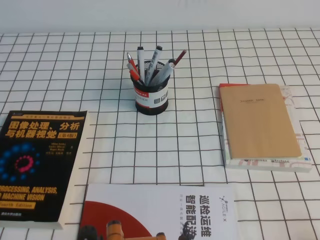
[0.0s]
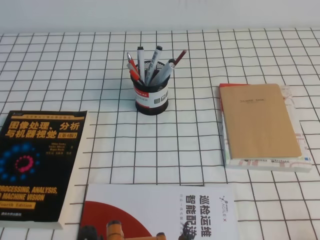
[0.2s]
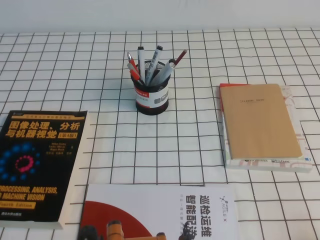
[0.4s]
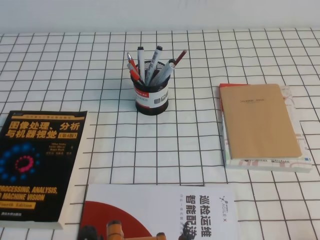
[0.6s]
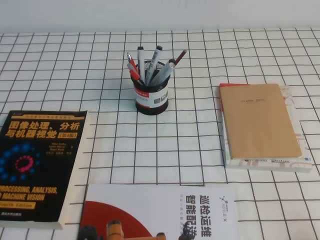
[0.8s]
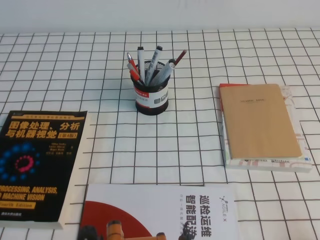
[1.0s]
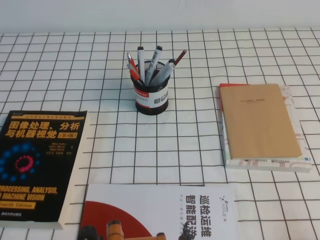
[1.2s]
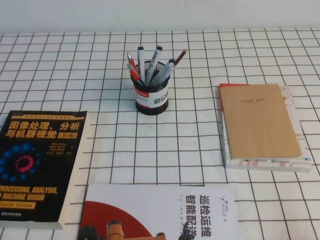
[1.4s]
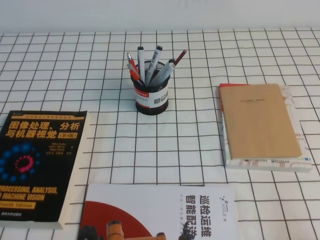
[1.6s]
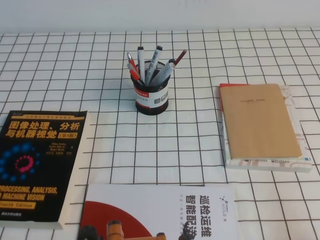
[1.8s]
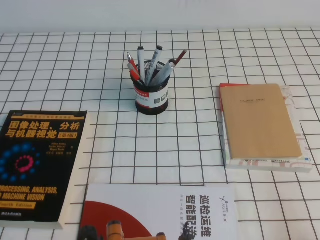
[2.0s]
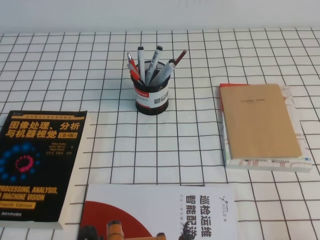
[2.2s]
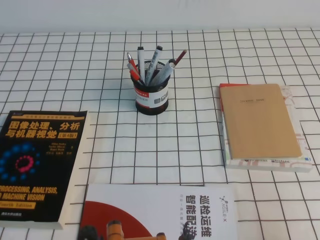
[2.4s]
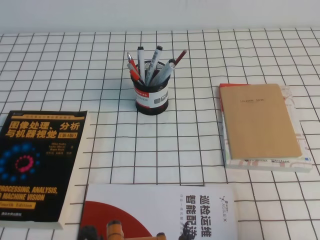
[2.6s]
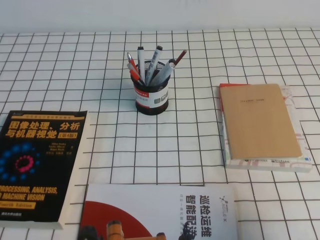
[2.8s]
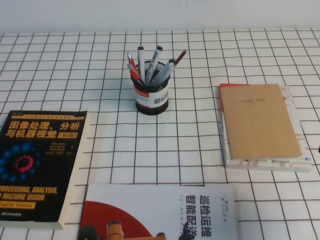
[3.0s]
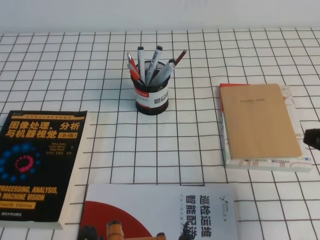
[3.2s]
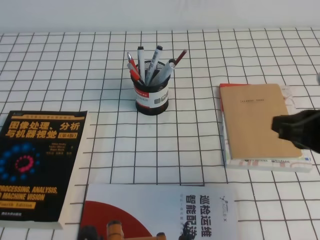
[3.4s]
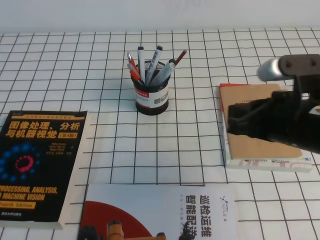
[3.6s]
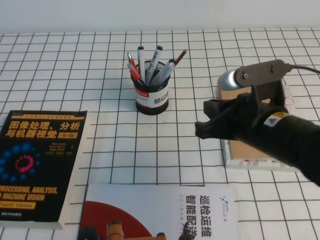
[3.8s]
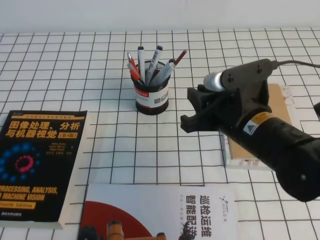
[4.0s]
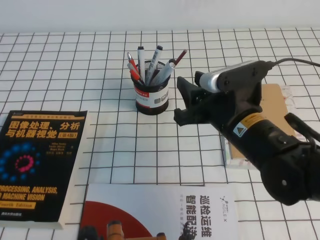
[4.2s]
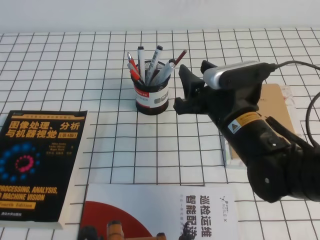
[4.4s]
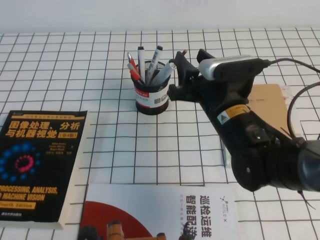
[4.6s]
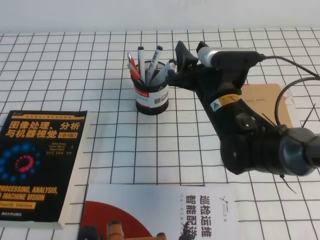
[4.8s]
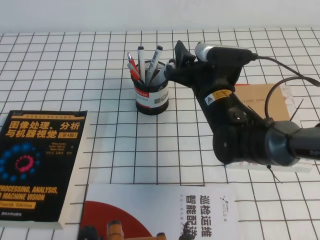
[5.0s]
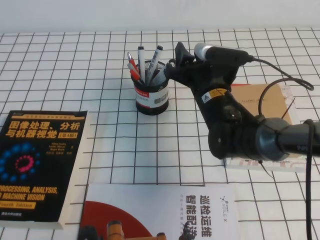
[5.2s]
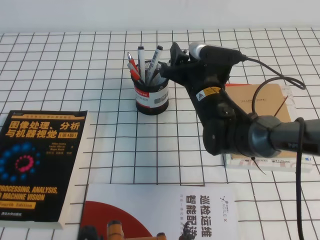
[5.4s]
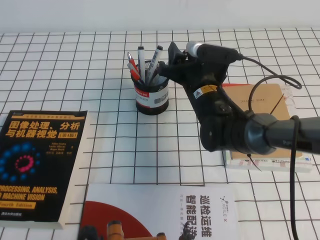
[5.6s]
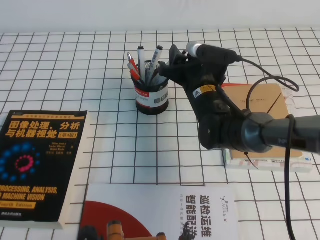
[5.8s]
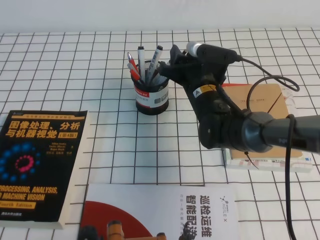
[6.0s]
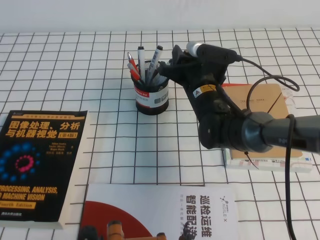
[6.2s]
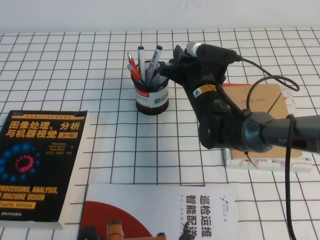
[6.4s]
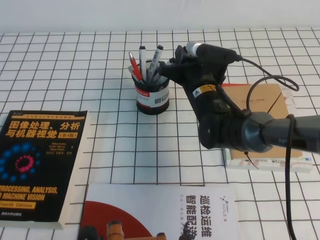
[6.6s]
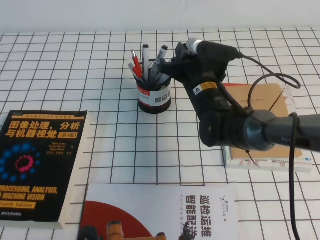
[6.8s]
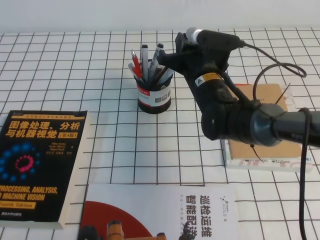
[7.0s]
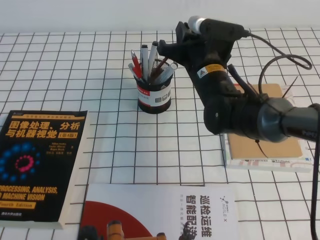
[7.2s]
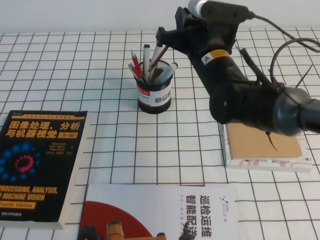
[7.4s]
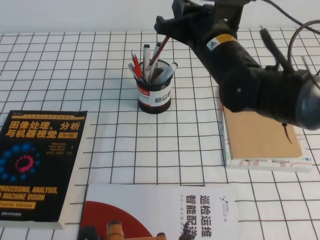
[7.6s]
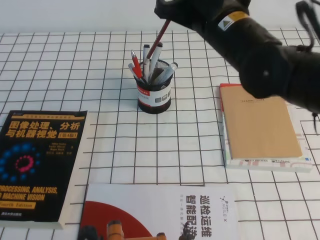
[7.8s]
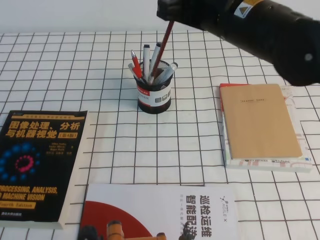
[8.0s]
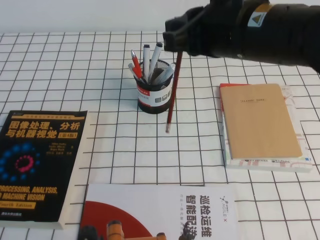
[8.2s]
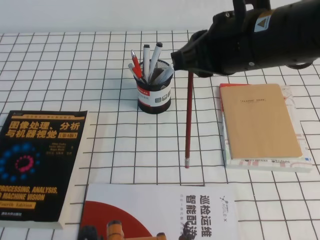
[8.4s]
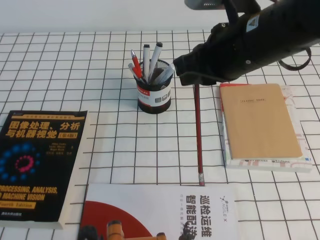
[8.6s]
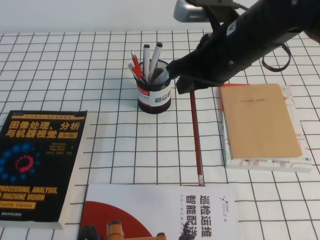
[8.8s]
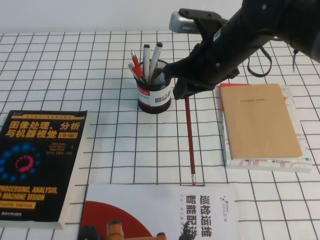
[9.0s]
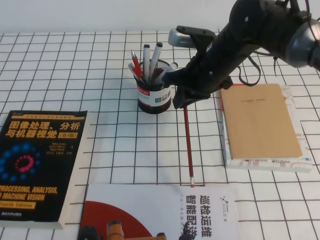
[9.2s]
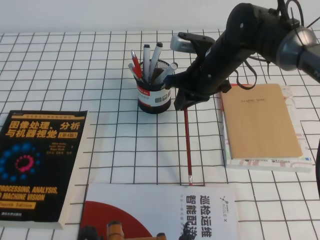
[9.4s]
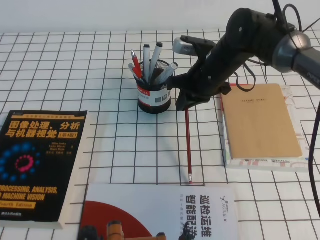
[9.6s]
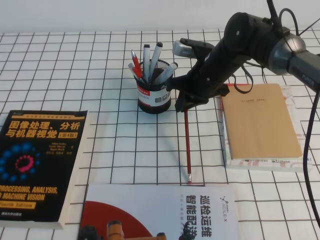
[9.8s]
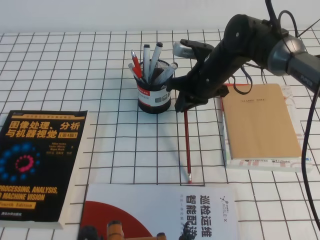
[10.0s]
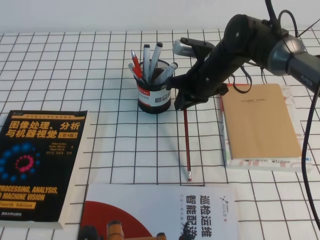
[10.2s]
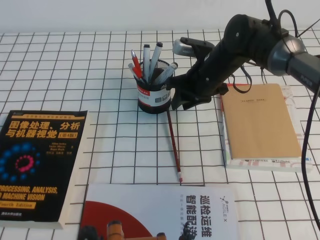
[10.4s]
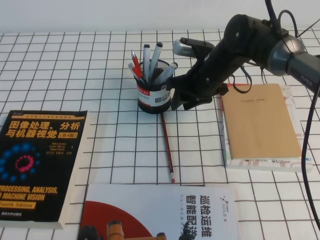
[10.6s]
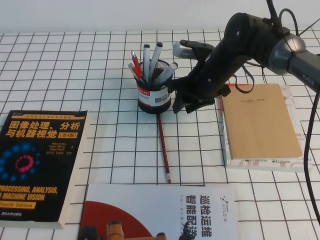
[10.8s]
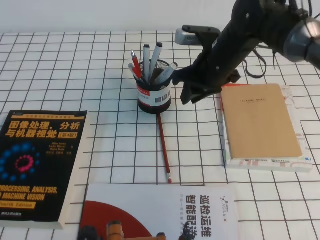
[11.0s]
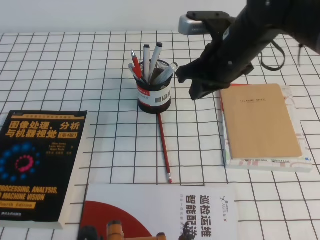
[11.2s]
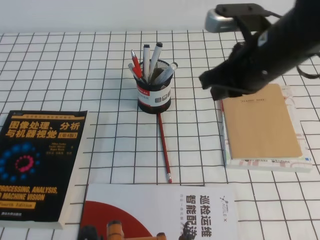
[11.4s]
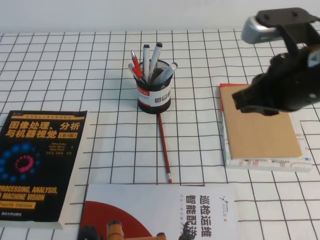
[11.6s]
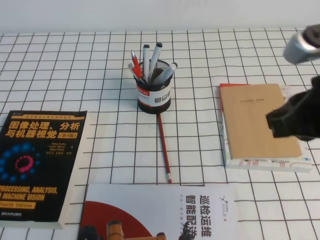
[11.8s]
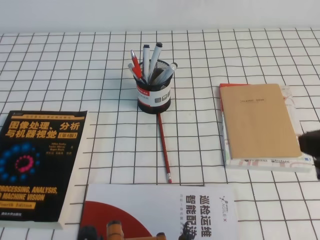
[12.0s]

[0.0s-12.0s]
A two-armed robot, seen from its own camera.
1.6s to 3.0s: The right gripper moves forward and upward, about 15 cm.
3.0s to 4.4s: The right gripper is displaced to the left and forward by some 20 cm, and opens.
4.4s to 6.0s: The right gripper heads forward, covering some 10 cm.
6.0s to 7.6s: The right gripper travels upward by about 10 cm, and closes up.
7.6s to 9.0s: The right gripper reaches approximately 10 cm backward, then returns.
9.0s to 10.4s: The right gripper shifts approximately 15 cm downward and forward, and opens up.
10.4s to 12.0s: The right gripper is displaced backward, to the right and upward by some 35 cm, and closes.

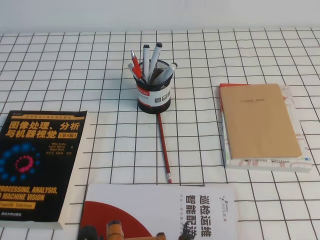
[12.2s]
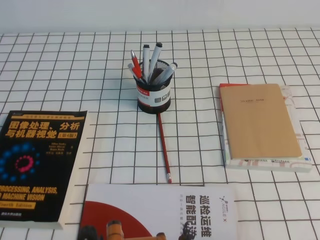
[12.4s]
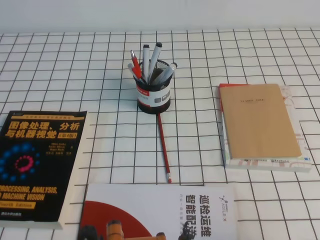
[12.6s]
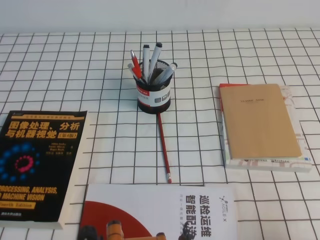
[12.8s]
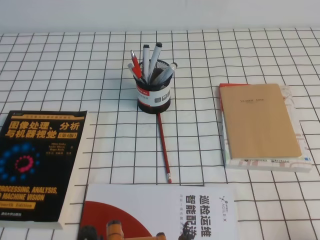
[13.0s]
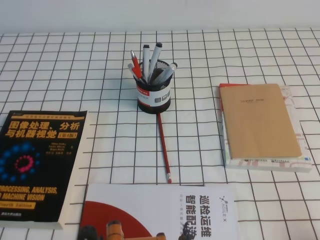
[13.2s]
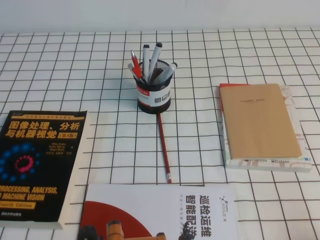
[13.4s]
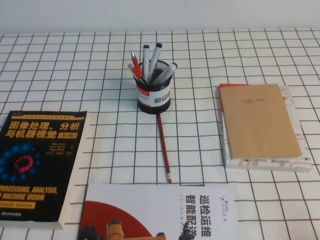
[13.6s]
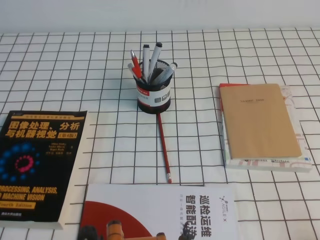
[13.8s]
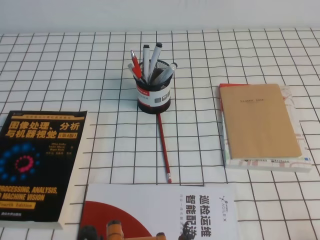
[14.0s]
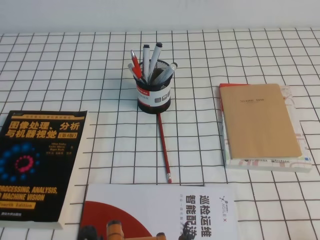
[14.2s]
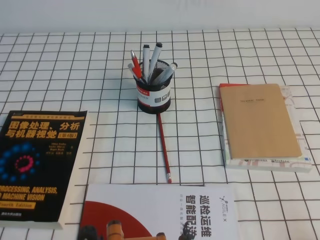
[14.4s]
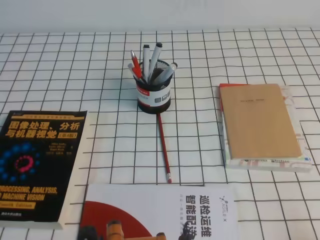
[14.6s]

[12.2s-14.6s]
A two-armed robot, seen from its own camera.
12.2s to 13.4s: The right gripper heads downward and to the right, covering roughly 15 cm.

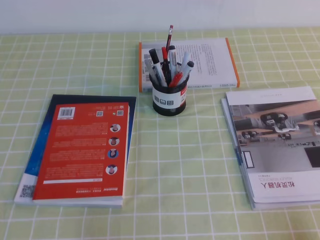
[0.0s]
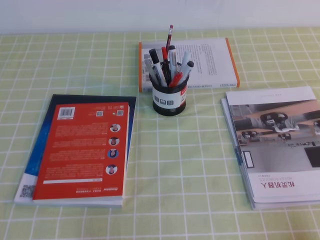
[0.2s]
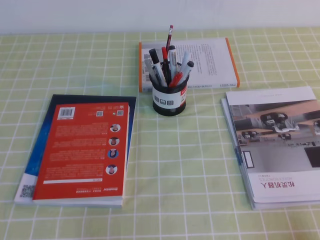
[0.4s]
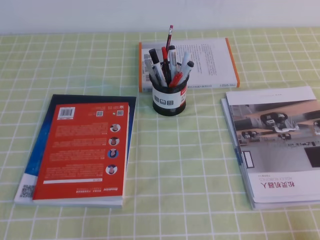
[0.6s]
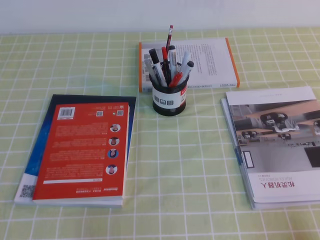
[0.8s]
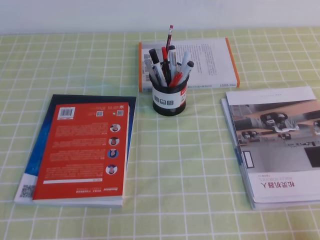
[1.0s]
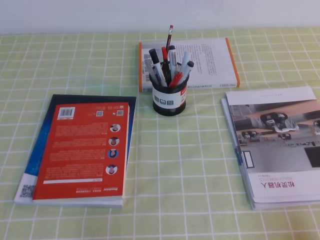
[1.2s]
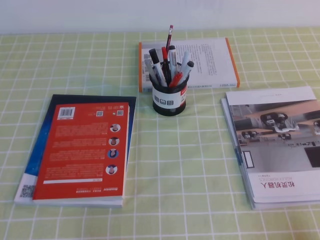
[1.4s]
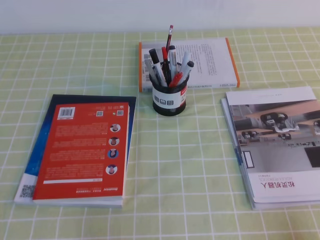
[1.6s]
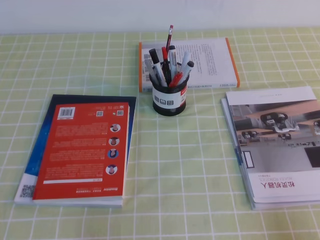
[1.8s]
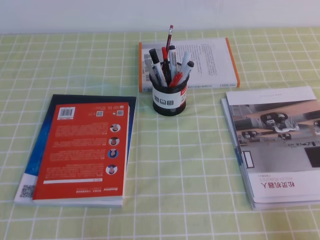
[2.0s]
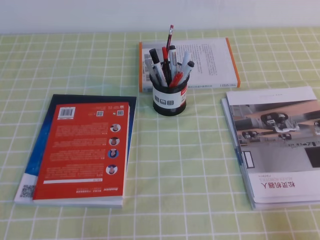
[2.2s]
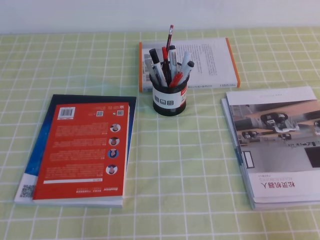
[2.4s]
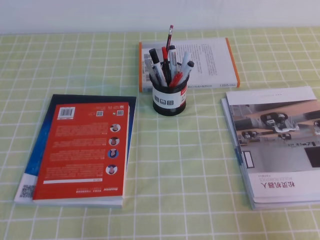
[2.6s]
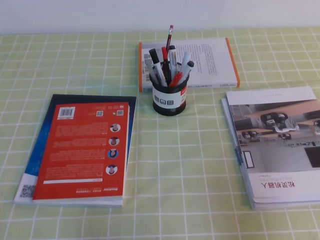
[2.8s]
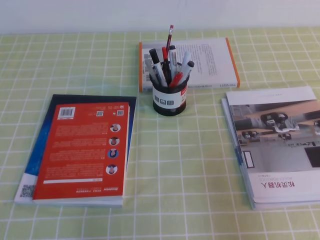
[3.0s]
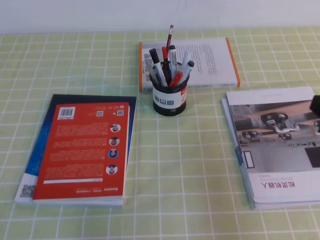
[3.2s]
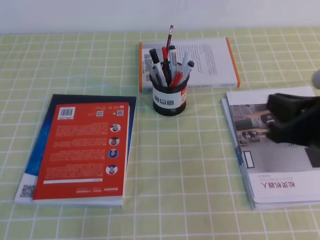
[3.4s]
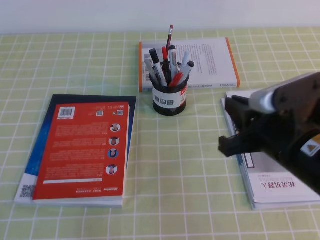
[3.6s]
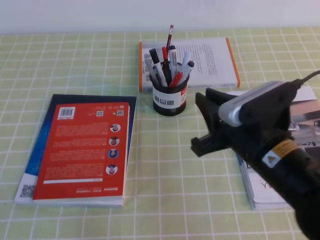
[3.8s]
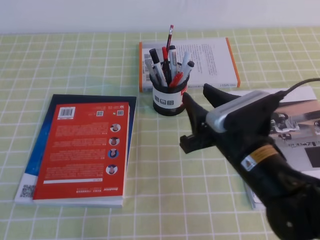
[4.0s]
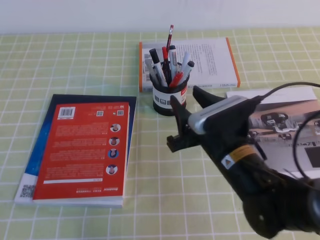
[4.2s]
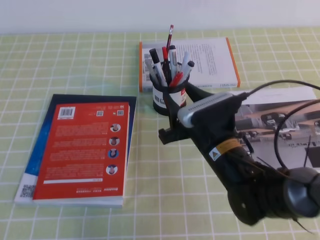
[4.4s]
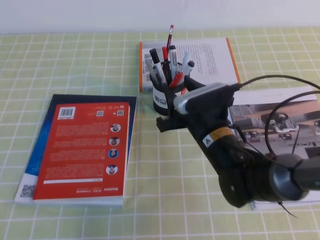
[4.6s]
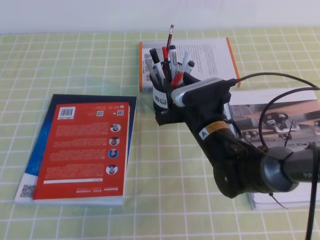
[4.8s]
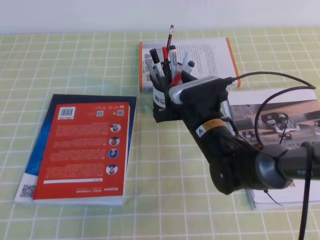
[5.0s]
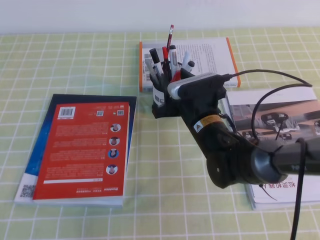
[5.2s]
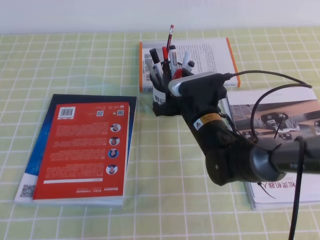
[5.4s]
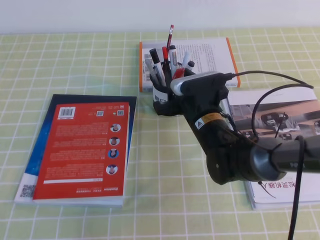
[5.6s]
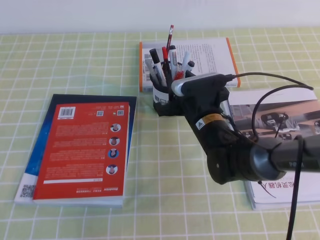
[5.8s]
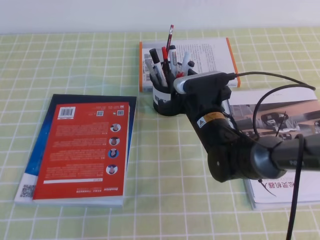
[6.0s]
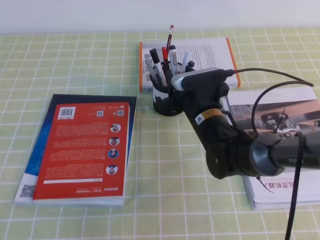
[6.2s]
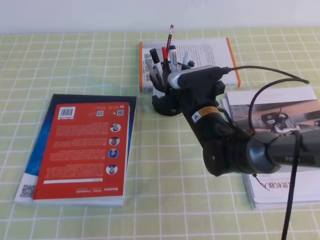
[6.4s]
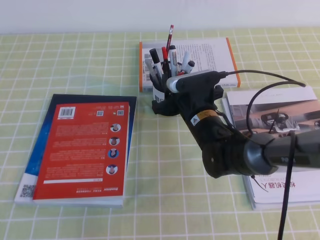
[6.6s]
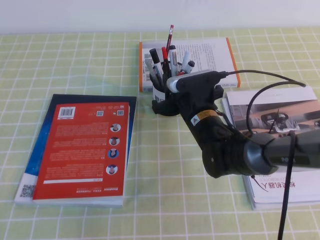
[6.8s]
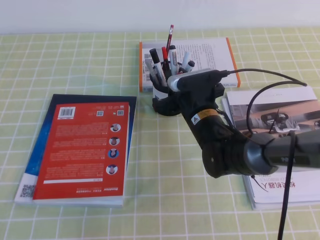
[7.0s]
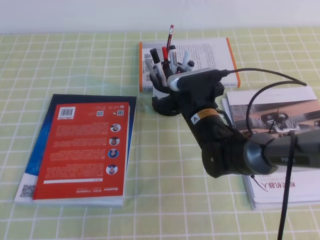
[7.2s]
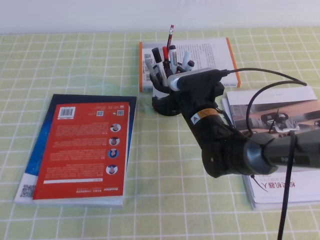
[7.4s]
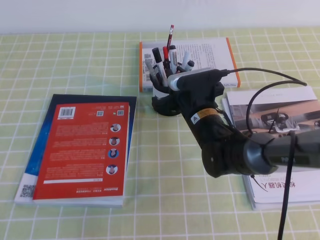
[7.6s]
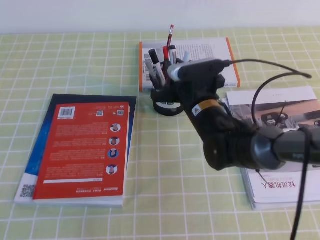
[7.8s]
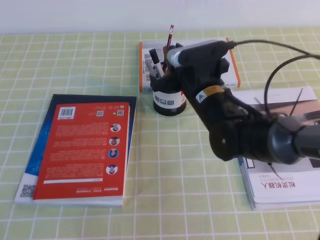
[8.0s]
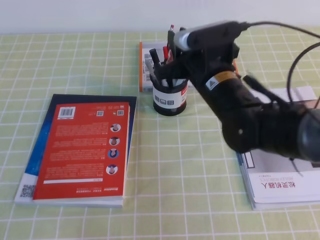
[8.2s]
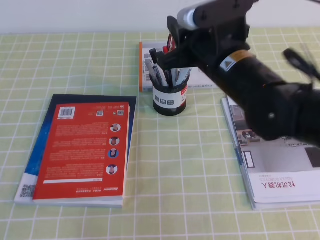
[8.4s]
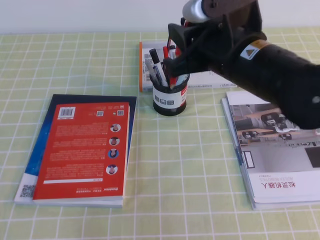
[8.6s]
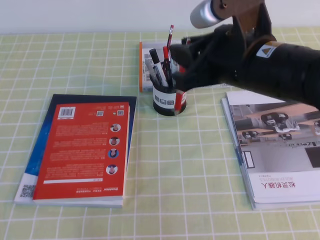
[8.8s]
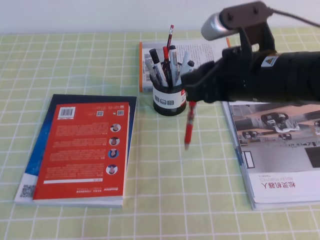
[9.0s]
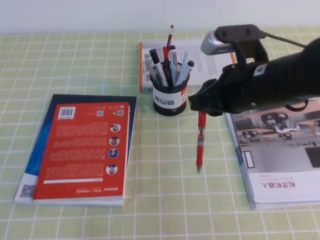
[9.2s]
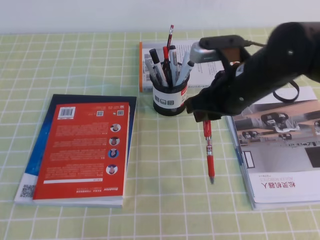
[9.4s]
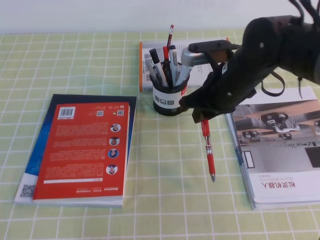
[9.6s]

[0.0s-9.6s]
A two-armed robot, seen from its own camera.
1.6s to 3.2s: The right gripper shifts about 20 cm upward and forward.
3.2s to 4.8s: The right gripper shifts approximately 25 cm to the left, forward and downward, and opens up.
4.8s to 6.4s: There are only small adjustments of the grippers.
6.4s to 8.0s: The right gripper moves upward, about 5 cm, and closes up.
8.0s to 9.6s: The right gripper heads to the right, covering some 5 cm, and travels upward and back again, about 10 cm each way.
